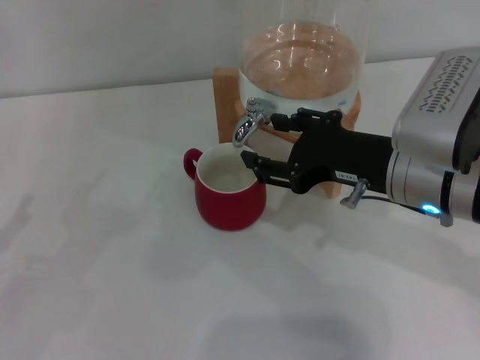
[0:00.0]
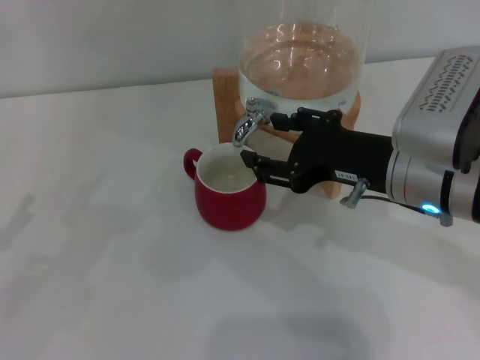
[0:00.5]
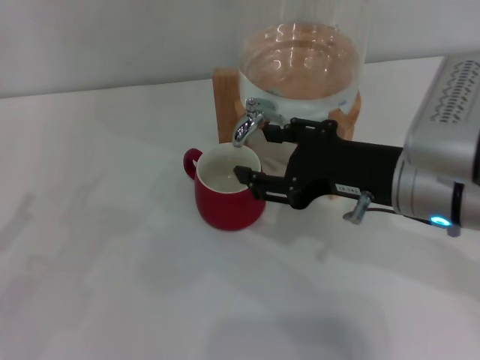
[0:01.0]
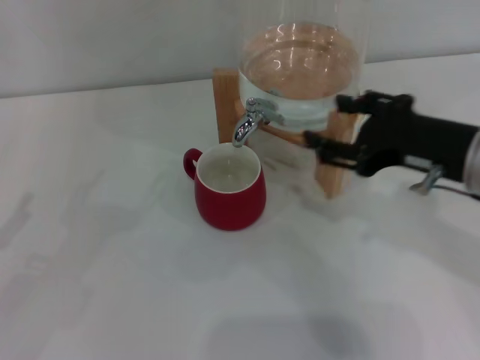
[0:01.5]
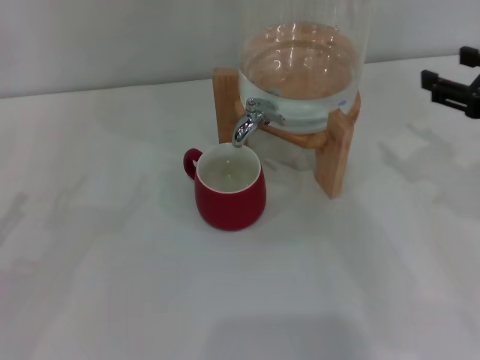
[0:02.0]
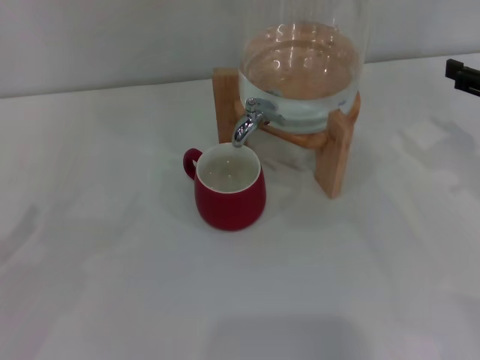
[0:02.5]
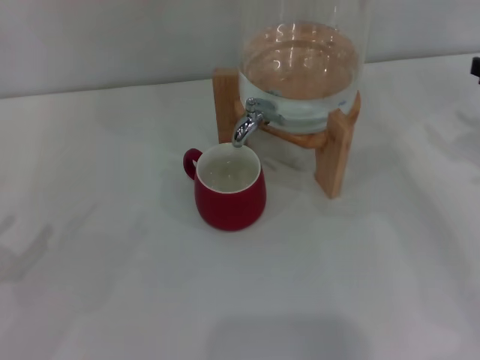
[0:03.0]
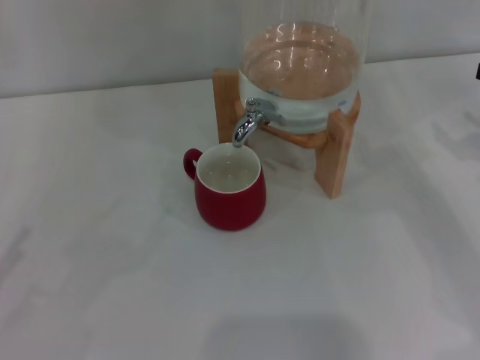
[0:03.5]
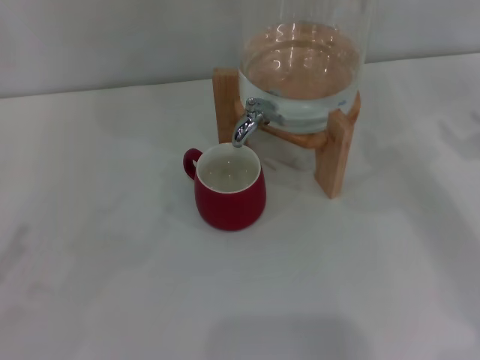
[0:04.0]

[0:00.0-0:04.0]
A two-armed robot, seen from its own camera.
Task of the whole recording: the left gripper pick up the red cup and place it horizontally under the faucet, the right gripper turn on the faucet to fill the cup, and then turn off the faucet.
0:00.0 to 0:02.0: The right gripper goes some 15 cm to the right.
0:02.0 to 0:04.0: The right gripper moves to the right, roughly 5 cm.
